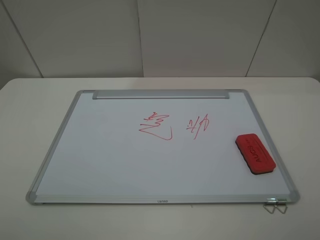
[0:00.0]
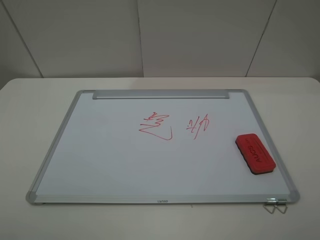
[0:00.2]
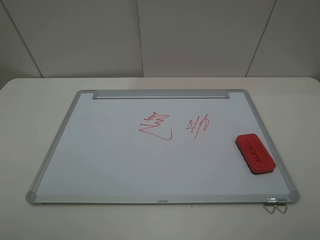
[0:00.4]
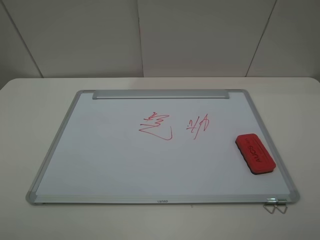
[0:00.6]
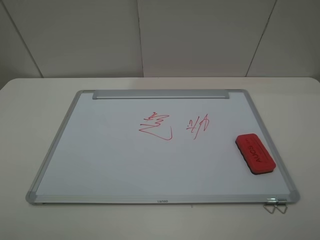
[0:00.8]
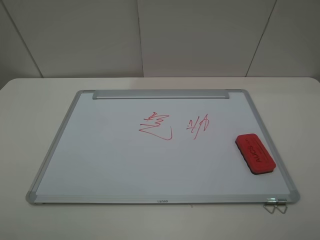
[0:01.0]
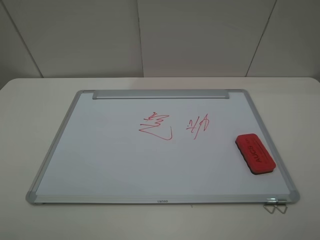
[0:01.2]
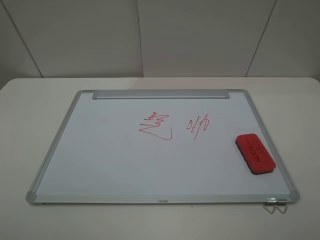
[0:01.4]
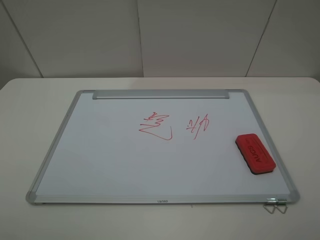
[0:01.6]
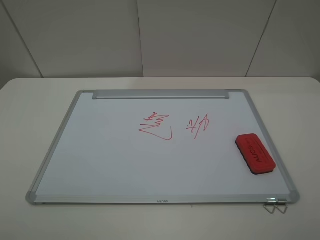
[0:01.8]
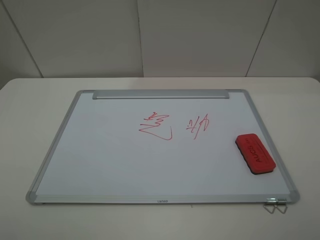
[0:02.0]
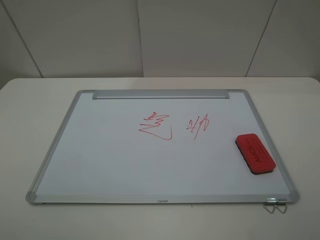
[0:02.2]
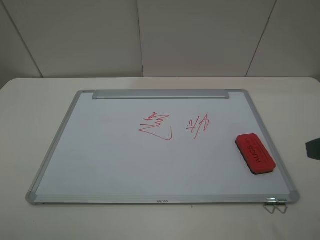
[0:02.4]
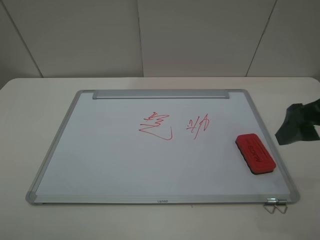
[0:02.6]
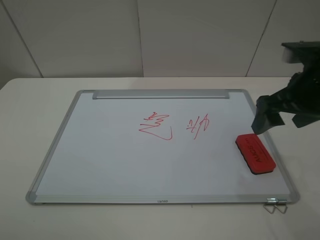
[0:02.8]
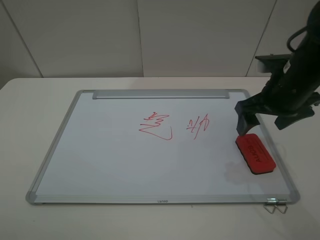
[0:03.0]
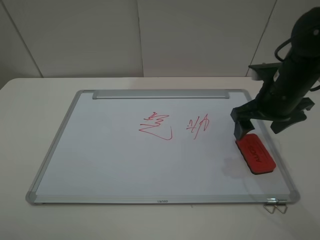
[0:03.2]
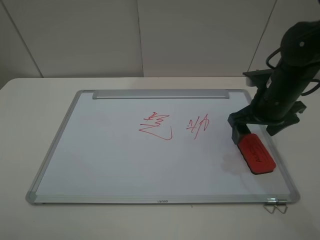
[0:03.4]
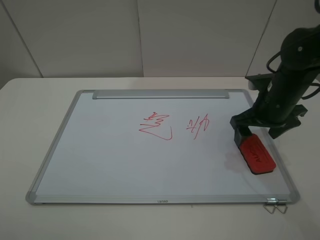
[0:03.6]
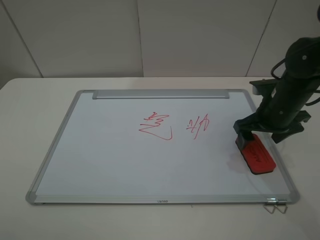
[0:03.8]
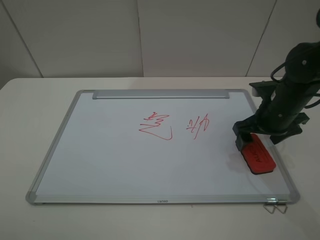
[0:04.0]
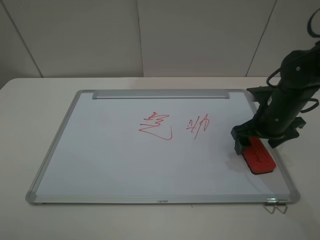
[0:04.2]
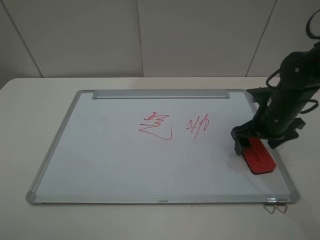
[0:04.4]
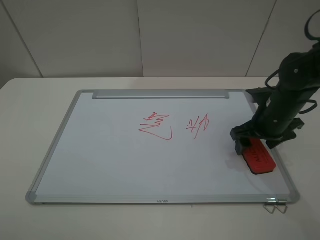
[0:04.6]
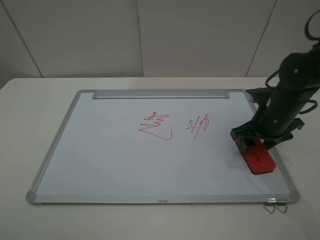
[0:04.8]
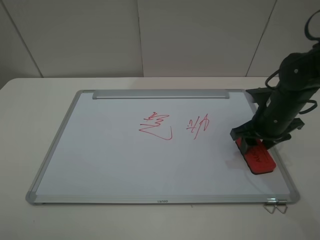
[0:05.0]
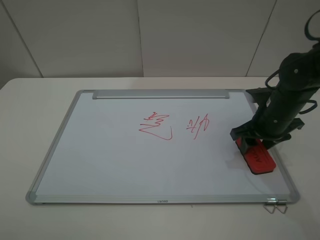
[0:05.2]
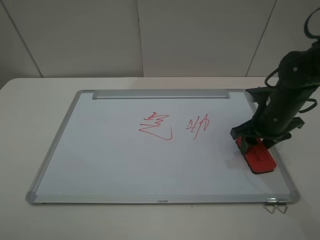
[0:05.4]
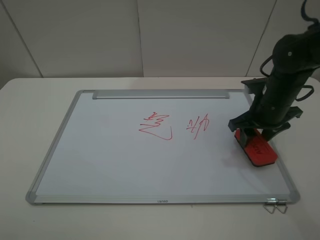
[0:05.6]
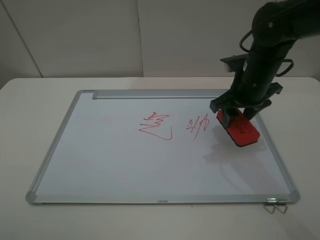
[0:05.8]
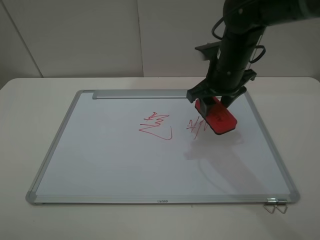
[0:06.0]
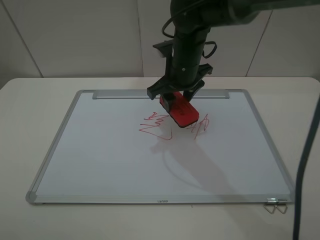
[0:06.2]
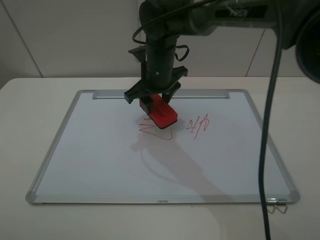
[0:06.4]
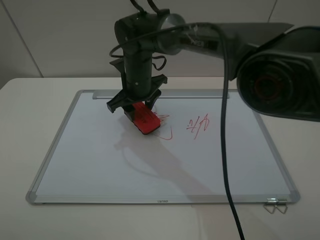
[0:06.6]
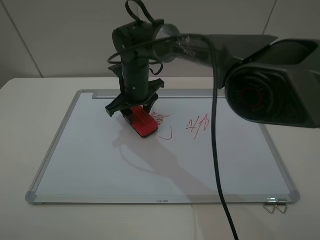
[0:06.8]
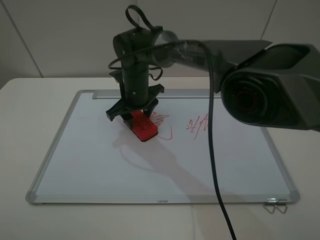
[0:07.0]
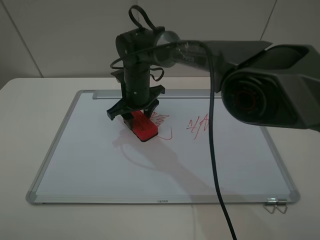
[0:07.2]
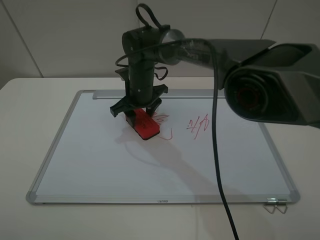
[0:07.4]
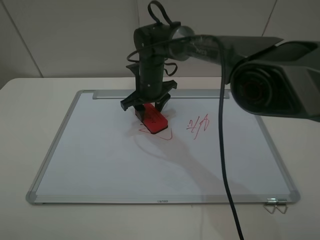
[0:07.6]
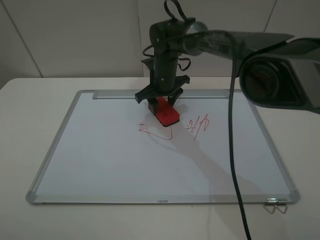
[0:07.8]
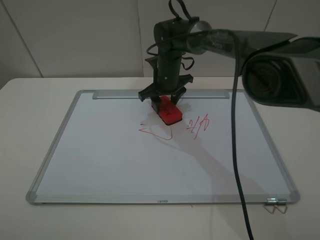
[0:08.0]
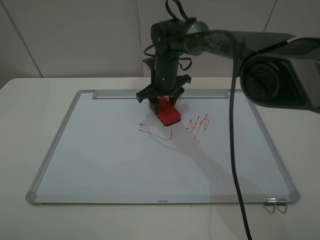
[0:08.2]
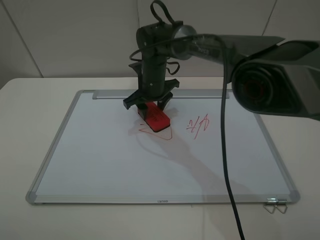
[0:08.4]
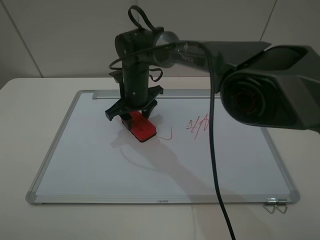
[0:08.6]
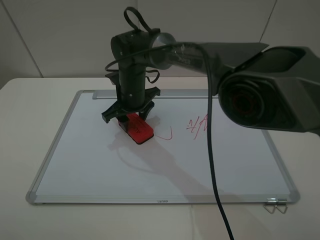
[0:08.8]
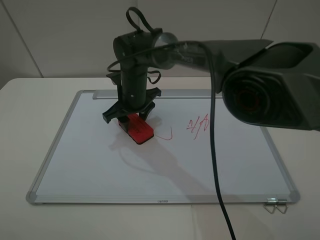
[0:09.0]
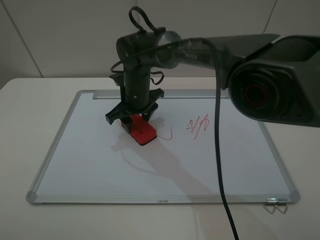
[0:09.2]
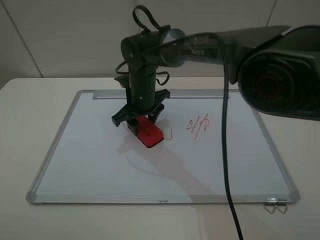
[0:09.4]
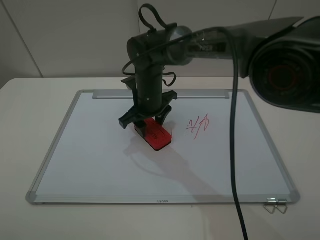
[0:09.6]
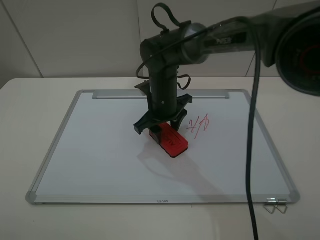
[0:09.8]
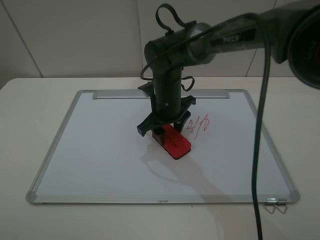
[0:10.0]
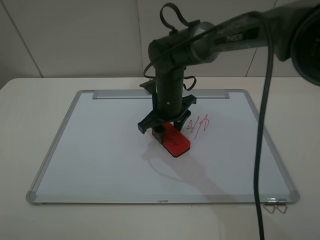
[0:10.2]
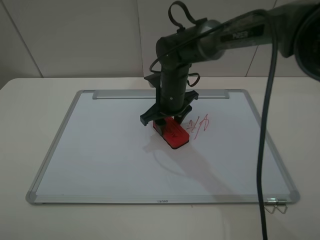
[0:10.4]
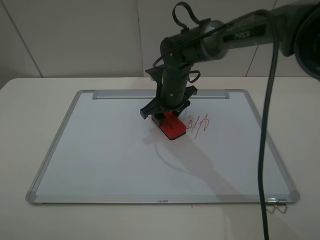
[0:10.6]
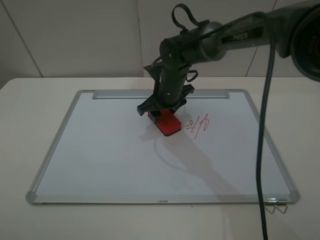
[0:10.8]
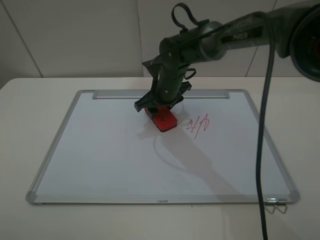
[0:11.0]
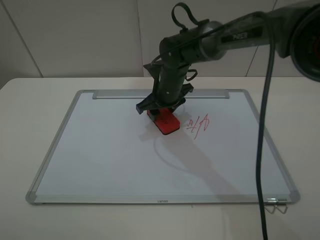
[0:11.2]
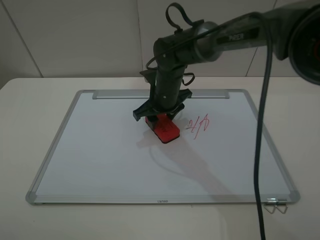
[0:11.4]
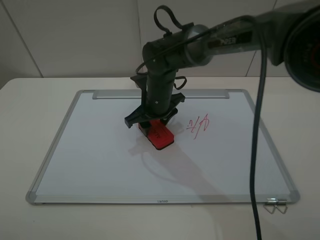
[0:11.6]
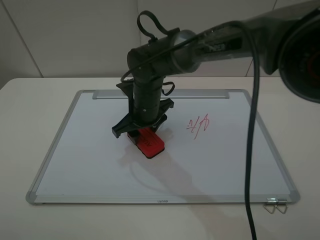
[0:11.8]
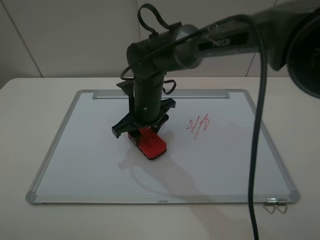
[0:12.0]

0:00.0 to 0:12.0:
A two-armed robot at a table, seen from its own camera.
Step, 0:00.0 to 0:04.8: Grasp the eraser with the right gripper.
0:00.0 to 0:01.6: Neither gripper changes place.
0:01.6 to 0:03.0: The right gripper shifts roughly 30 cm forward.
0:03.0 to 0:04.4: The right gripper shifts approximately 10 cm downward.
0:04.4 to 0:06.0: The right gripper goes roughly 15 cm to the left, upward and forward, and closes up.
0:06.0 to 0:07.6: The right gripper is displaced to the left, downward and forward by roughly 15 cm.
0:07.6 to 0:09.0: The right gripper moves some 5 cm.
0:09.0 to 0:10.4: The right gripper travels to the right by approximately 10 cm.
0:10.4 to 0:12.0: The right gripper shifts about 5 cm to the left.

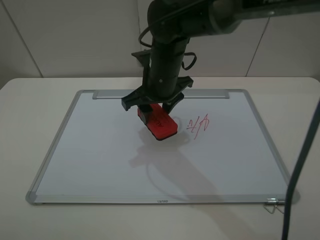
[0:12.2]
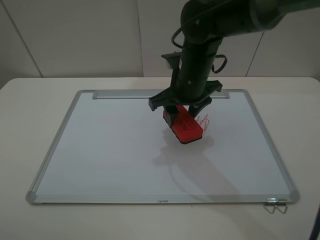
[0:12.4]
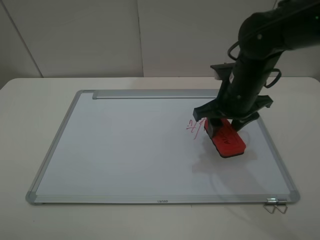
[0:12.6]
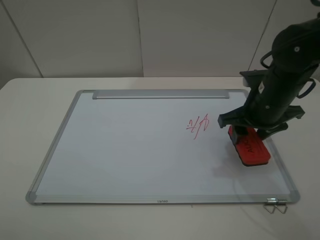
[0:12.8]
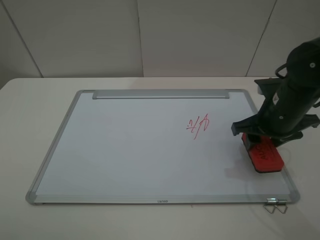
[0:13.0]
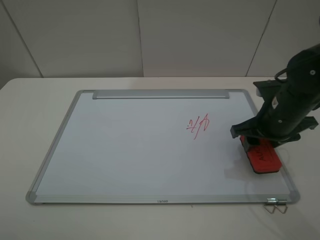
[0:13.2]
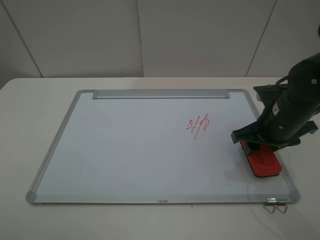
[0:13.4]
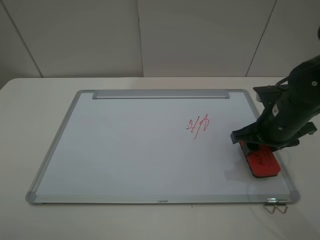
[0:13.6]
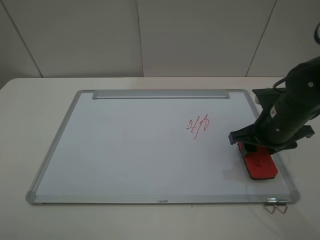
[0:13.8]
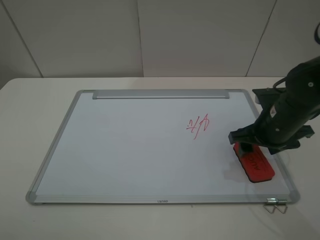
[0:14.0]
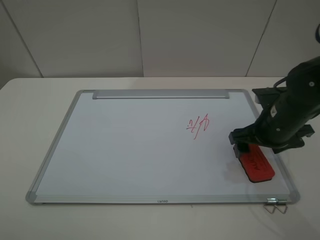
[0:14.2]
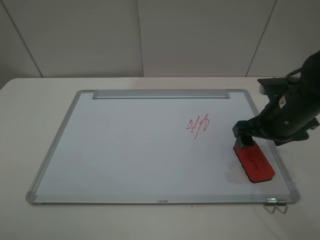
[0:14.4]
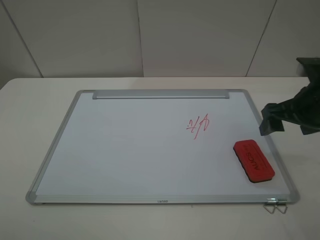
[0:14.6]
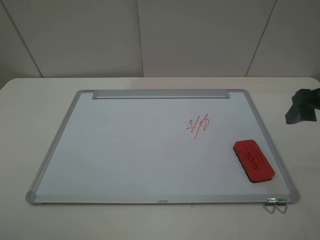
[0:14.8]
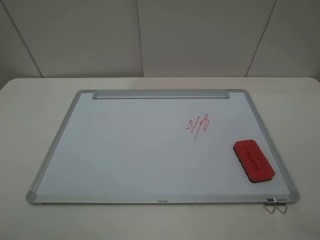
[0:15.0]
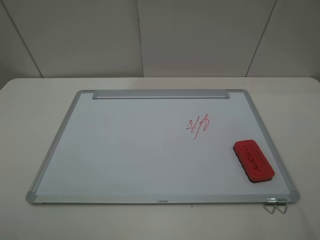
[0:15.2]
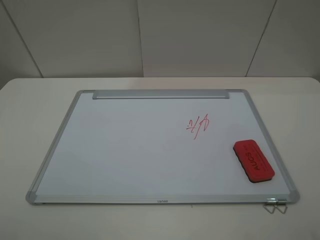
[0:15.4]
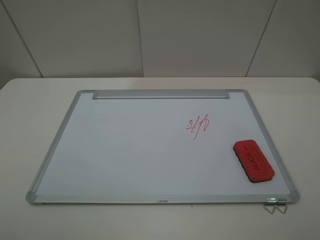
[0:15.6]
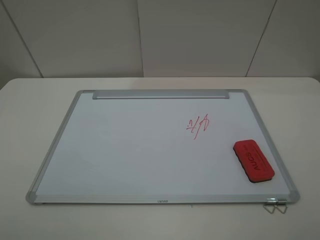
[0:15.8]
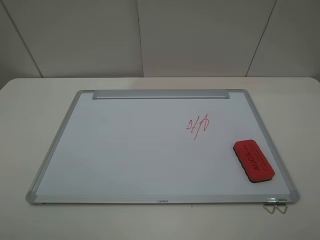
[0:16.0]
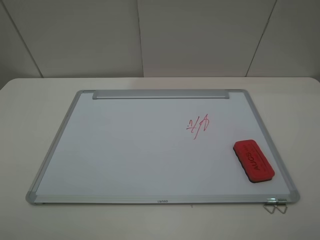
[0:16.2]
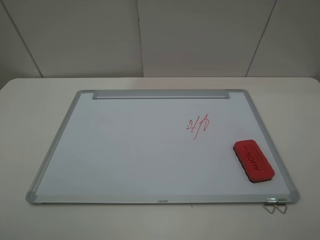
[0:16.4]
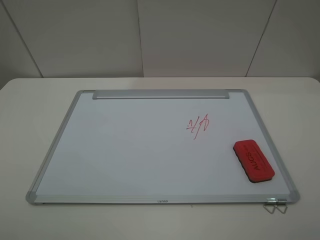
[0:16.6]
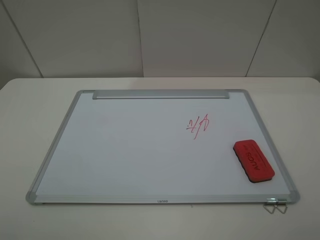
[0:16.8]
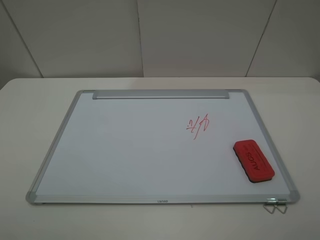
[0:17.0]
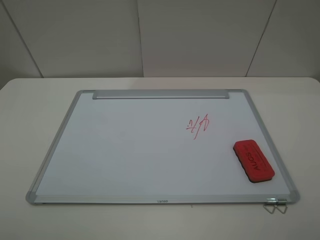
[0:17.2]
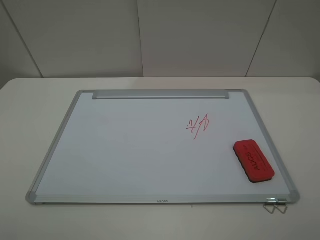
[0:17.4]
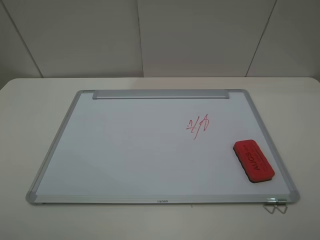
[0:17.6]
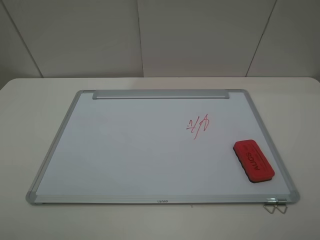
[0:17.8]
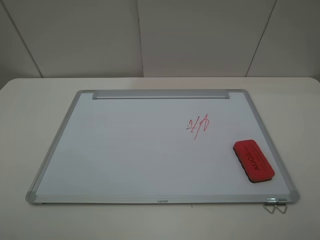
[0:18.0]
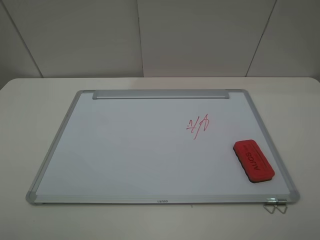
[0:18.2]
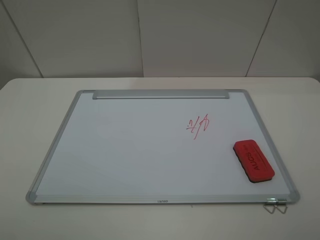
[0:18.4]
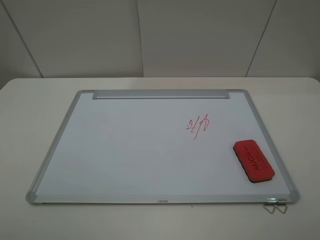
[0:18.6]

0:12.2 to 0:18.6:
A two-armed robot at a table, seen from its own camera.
Step, 0:12.2 to 0:14.2: Place the eraser with the right gripper.
0:12.2 to 0:13.8: The right gripper travels to the right and backward by roughly 25 cm.
0:13.8 to 0:15.4: The right gripper shifts about 30 cm backward and upward, and opens its fingers.
0:17.0 to 0:18.6: Both grippers stay about where they are.

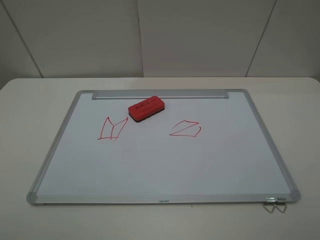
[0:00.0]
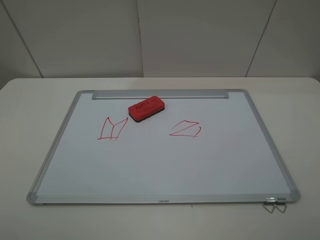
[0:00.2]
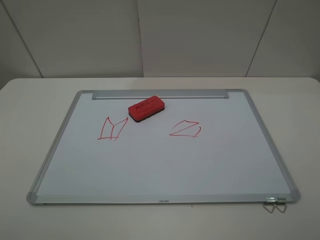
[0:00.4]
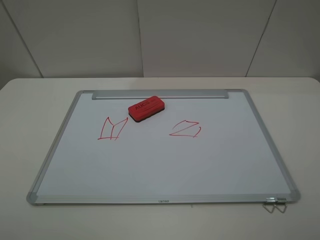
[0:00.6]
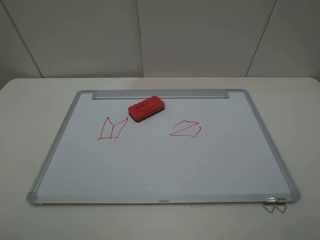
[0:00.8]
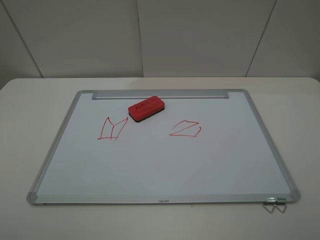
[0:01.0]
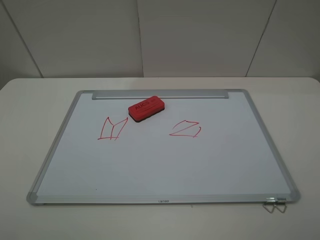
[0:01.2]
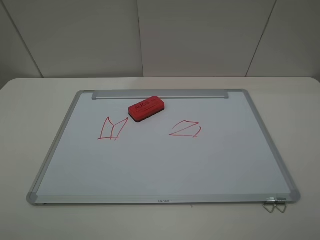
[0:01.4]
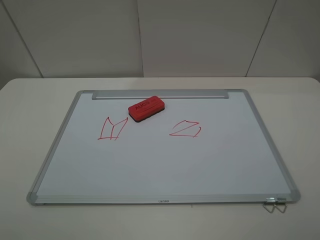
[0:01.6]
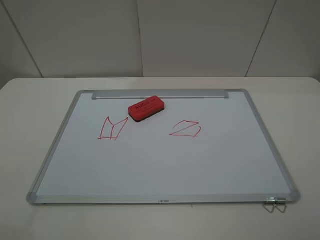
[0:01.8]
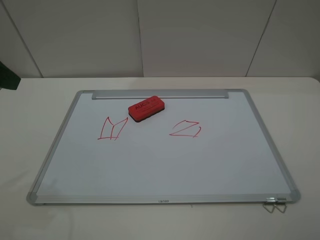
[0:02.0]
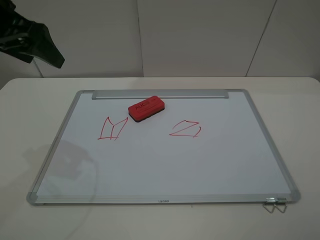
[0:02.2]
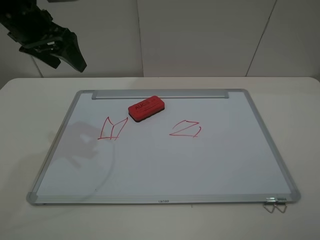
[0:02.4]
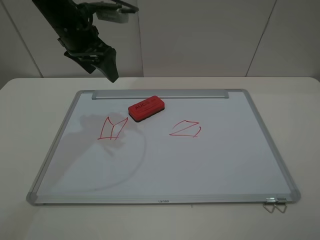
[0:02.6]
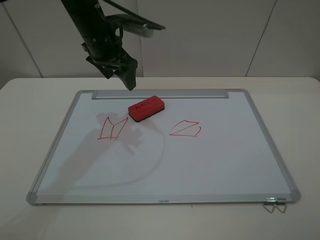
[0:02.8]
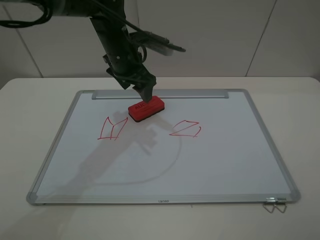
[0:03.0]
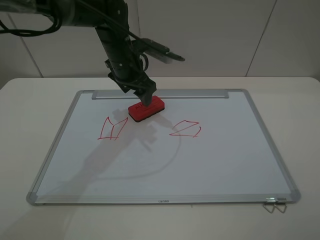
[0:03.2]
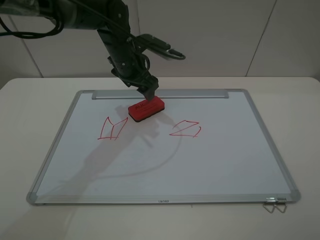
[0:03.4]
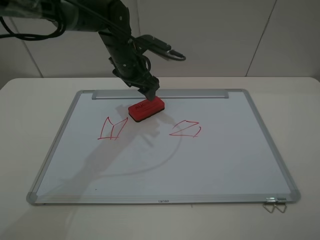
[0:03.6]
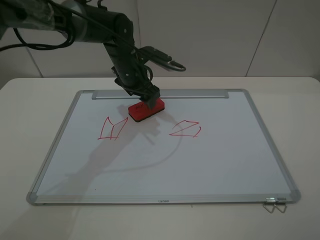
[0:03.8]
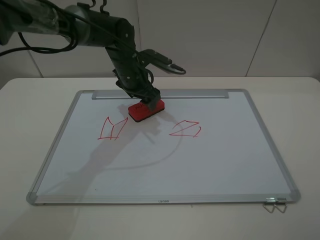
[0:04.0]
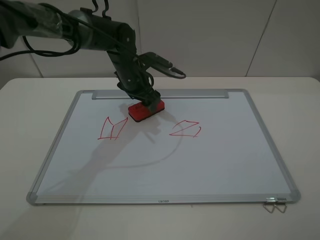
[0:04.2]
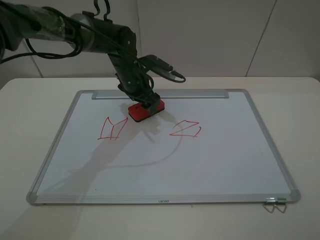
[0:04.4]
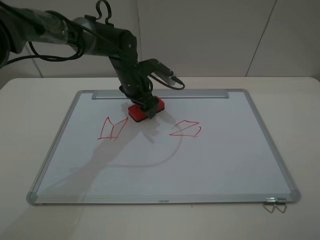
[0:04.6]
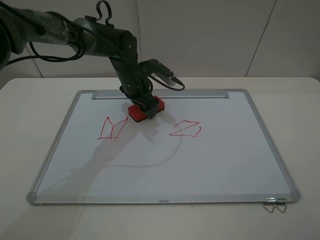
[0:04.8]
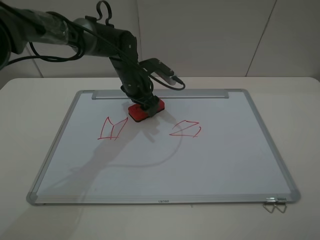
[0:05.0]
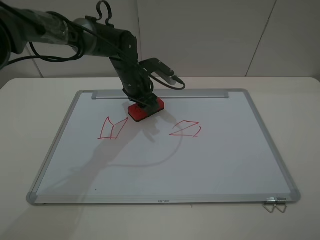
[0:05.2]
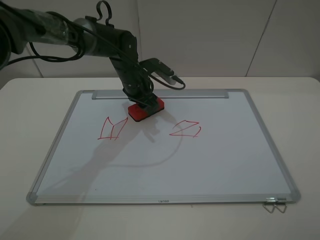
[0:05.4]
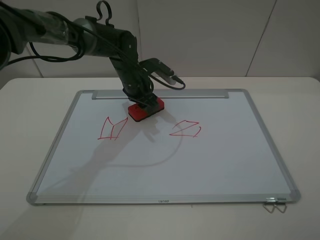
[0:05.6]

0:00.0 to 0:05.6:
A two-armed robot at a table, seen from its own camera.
Step, 0:00.0 to 0:05.2: Grasp the eraser with the left gripper.
0:01.4 to 0:02.8: The left gripper goes approximately 40 cm forward and to the right.
0:02.8 to 0:04.2: The left gripper is displaced downward by some 10 cm.
0:04.2 to 0:05.6: The left gripper closes up.
